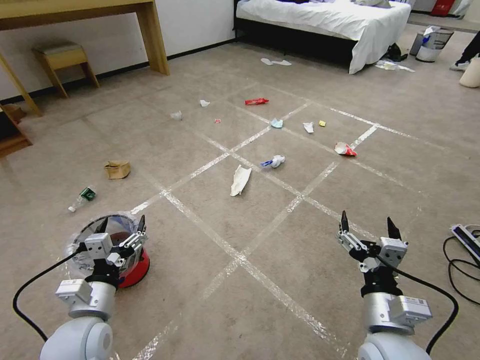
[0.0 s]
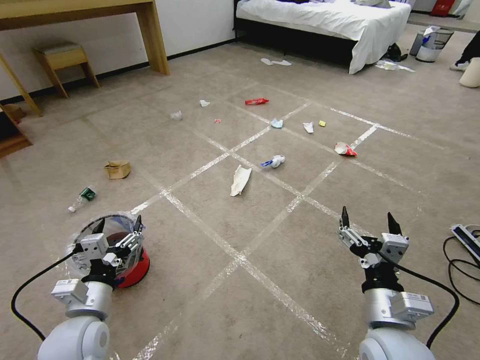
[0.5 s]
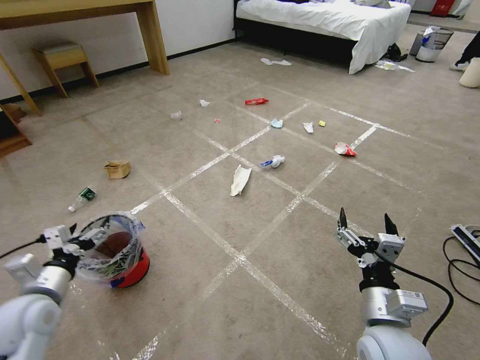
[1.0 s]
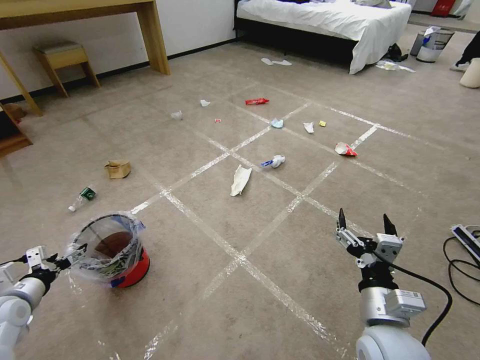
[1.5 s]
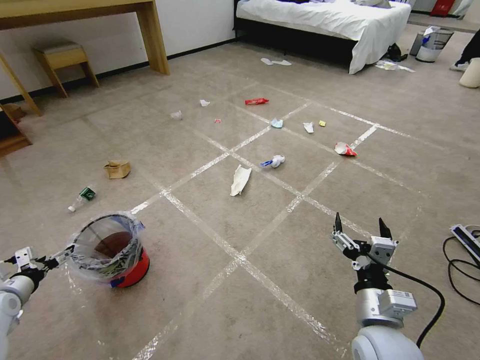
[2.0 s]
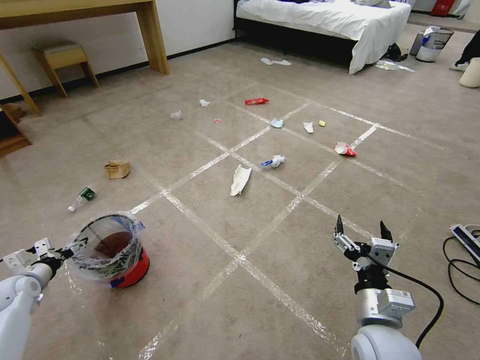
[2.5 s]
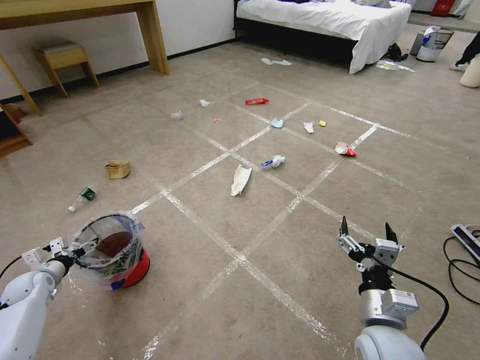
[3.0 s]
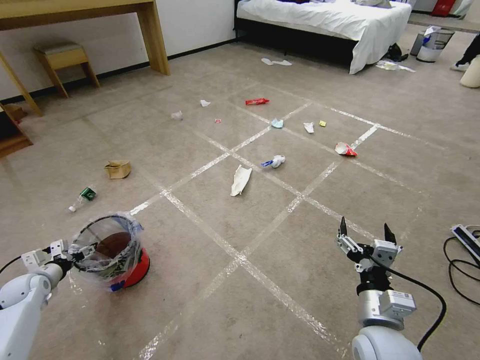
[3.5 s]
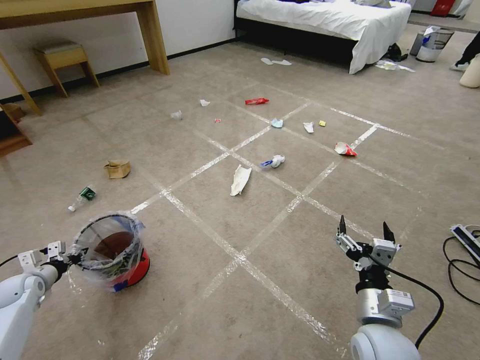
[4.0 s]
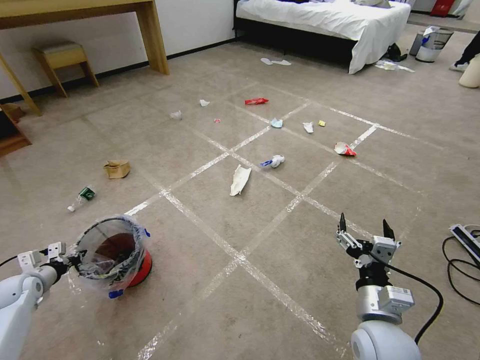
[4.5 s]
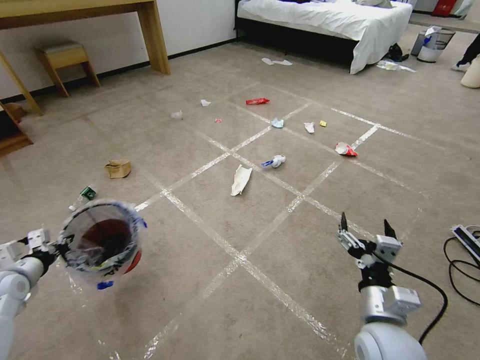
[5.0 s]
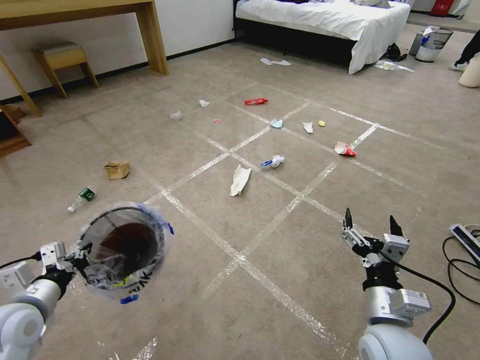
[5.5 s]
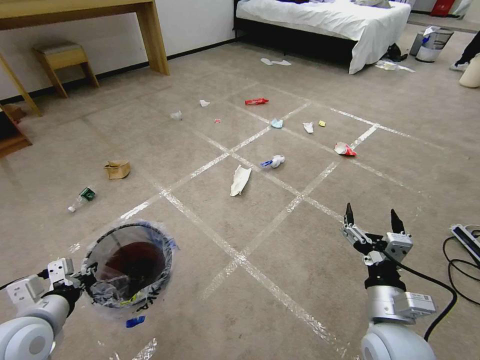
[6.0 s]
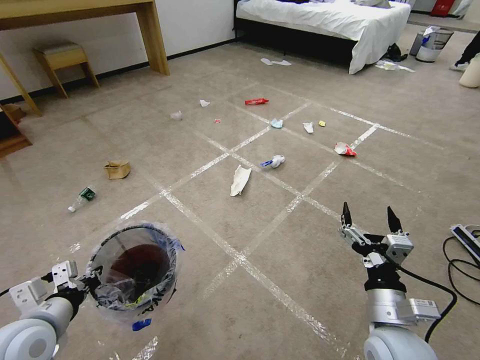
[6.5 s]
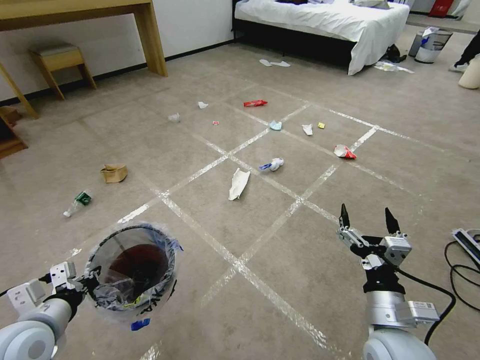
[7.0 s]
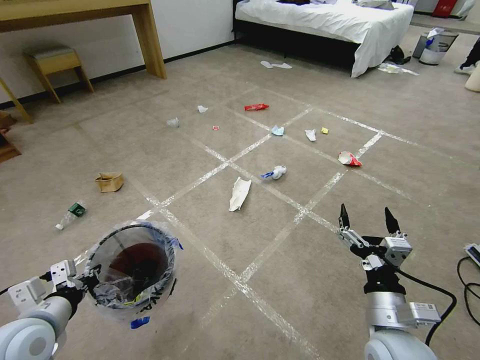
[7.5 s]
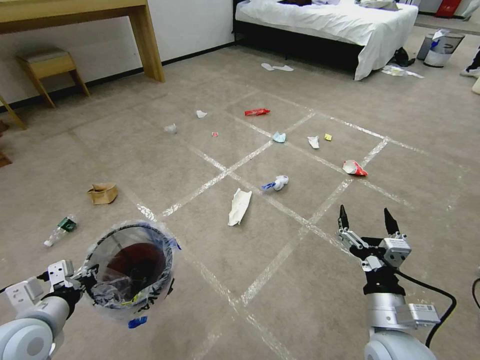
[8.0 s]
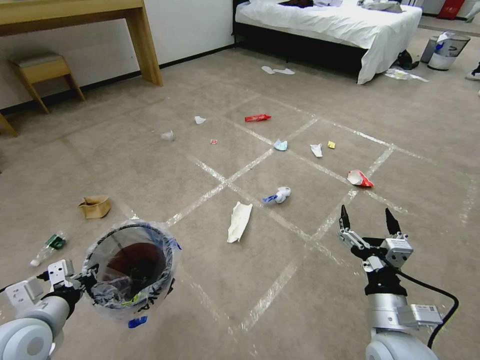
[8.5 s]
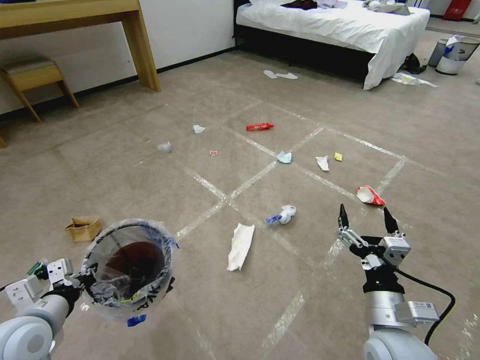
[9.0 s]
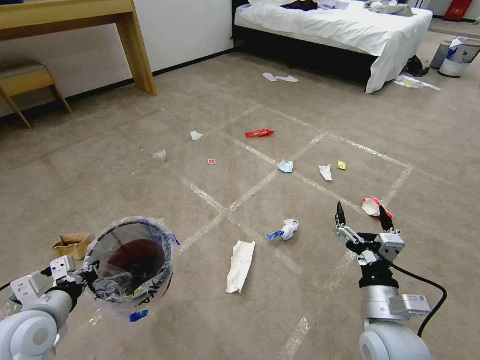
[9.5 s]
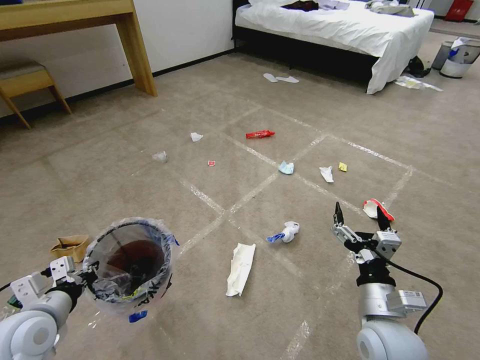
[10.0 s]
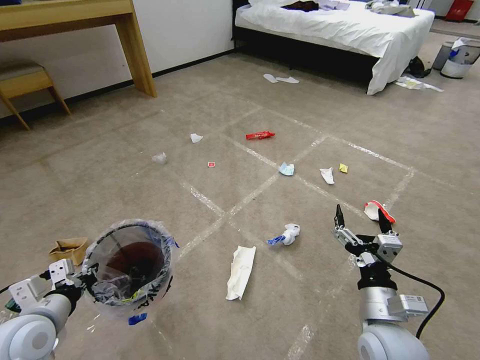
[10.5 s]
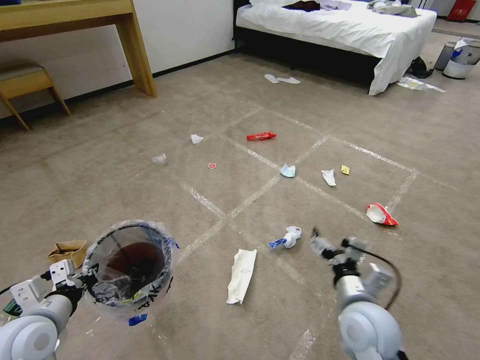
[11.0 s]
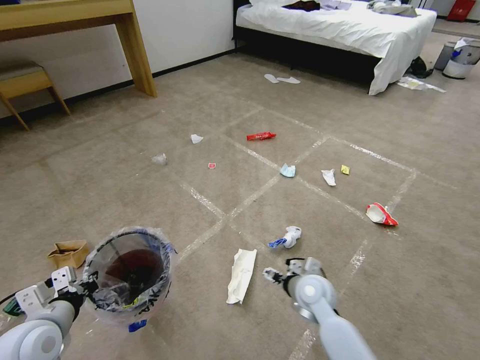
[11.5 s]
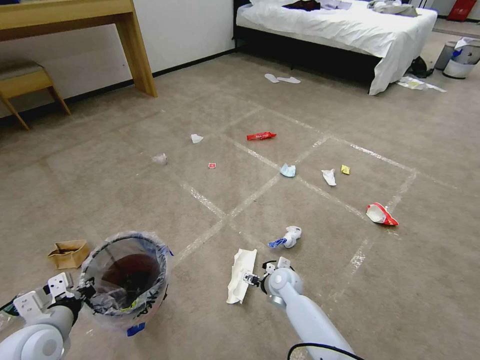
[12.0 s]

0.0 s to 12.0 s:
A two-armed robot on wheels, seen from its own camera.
Task of the whole recording: Pick up the trash bin and place the garbage on the floor into it.
2.0 to 4.0 s: The left gripper goes about 5 cm forward, and closes up.
4.0 to 6.0 s: The left gripper shifts some 30 cm to the right, backward and upward.
10.0 to 12.0 s: The right gripper heads forward, downward and to the left, covering roughly 30 cm.

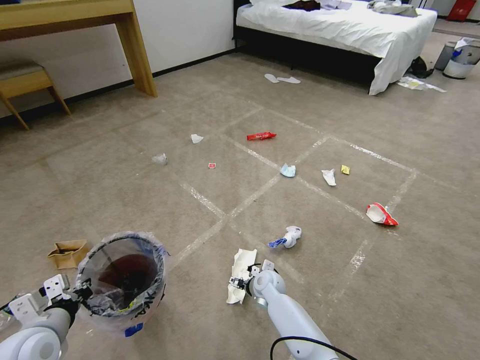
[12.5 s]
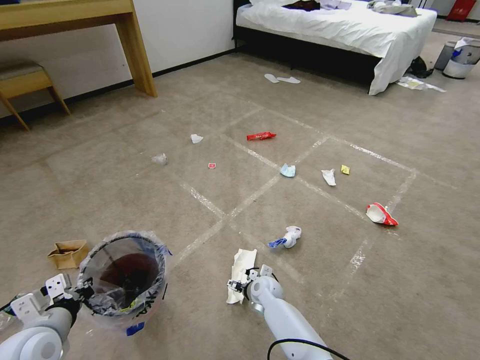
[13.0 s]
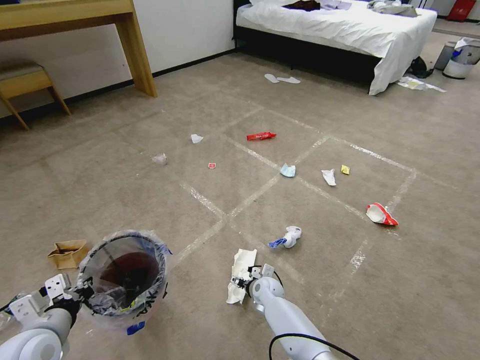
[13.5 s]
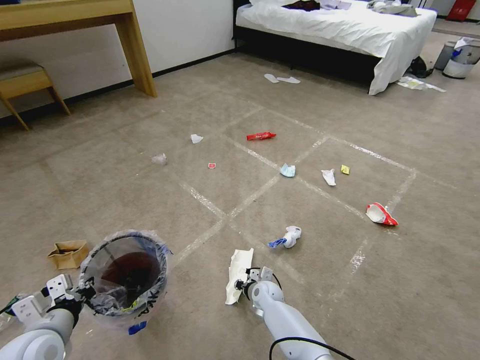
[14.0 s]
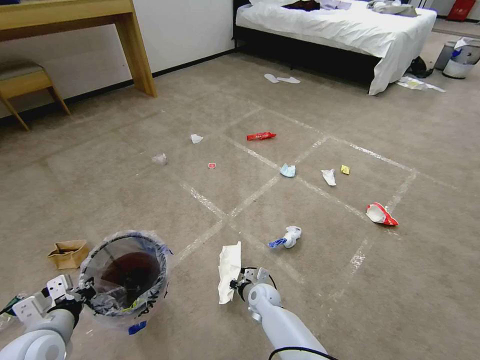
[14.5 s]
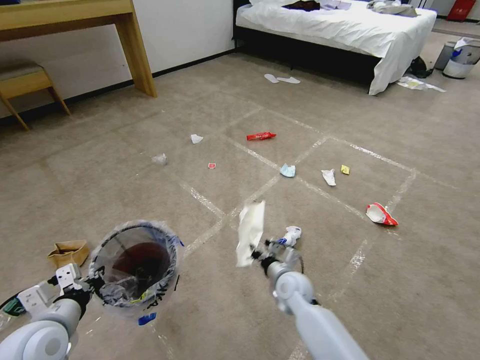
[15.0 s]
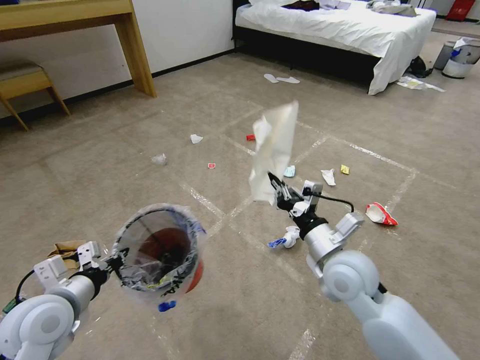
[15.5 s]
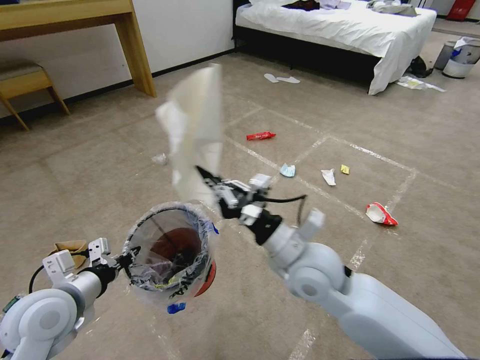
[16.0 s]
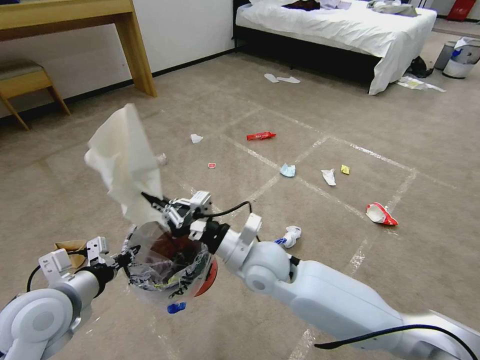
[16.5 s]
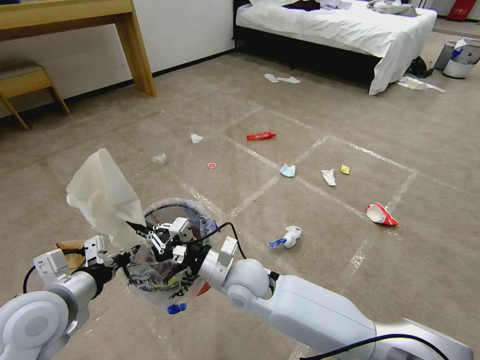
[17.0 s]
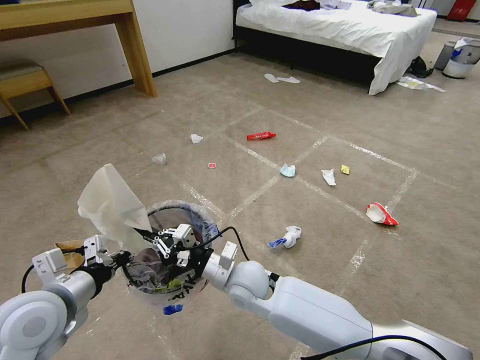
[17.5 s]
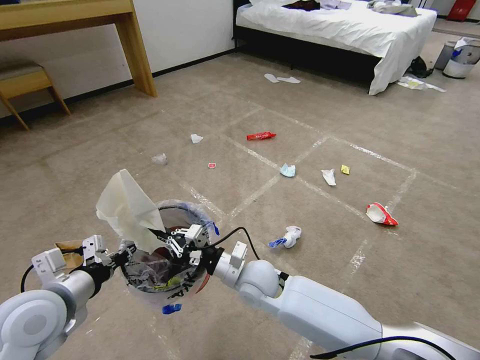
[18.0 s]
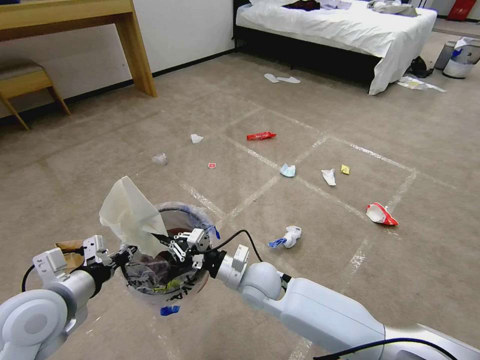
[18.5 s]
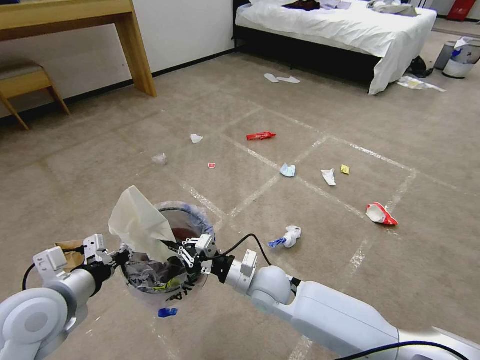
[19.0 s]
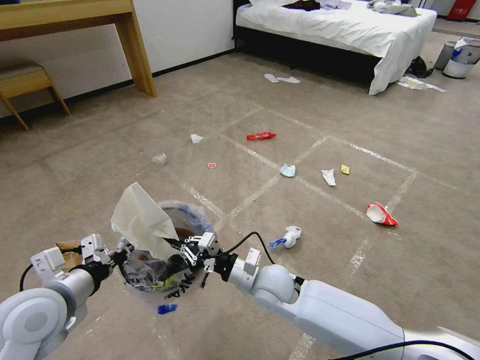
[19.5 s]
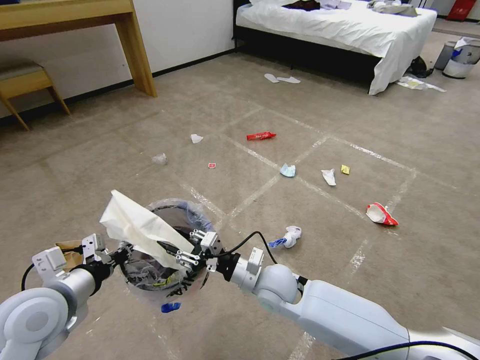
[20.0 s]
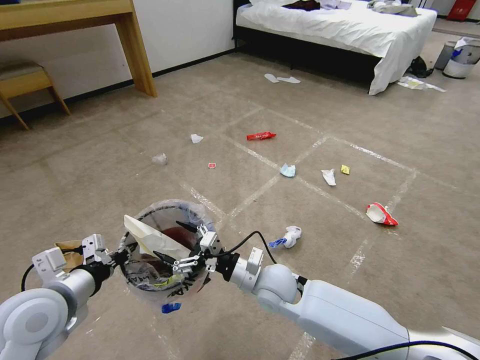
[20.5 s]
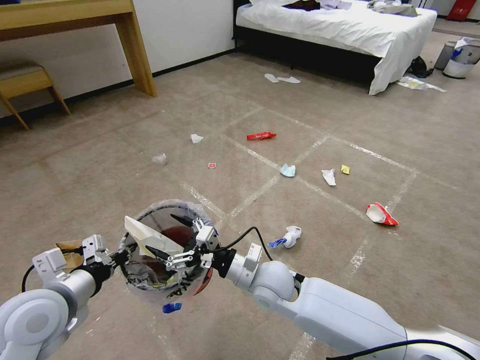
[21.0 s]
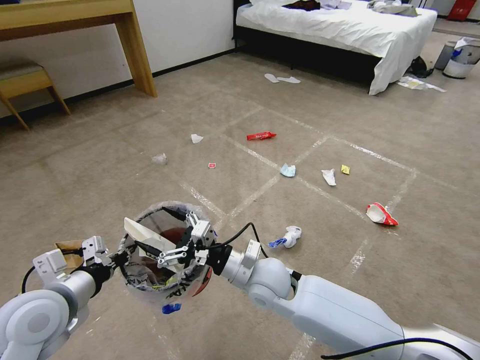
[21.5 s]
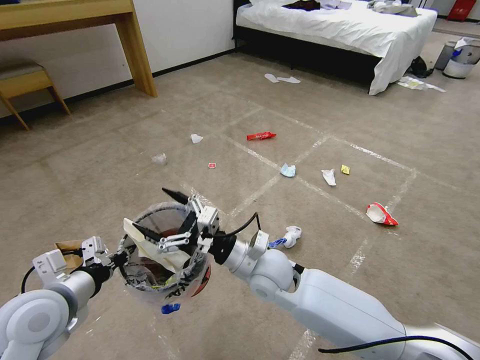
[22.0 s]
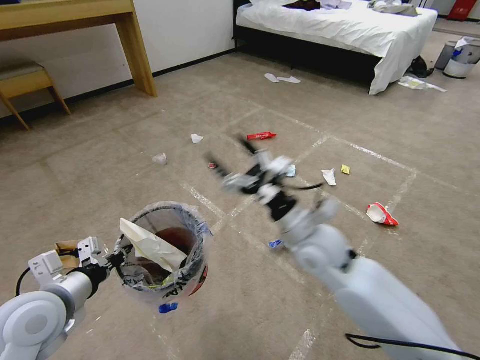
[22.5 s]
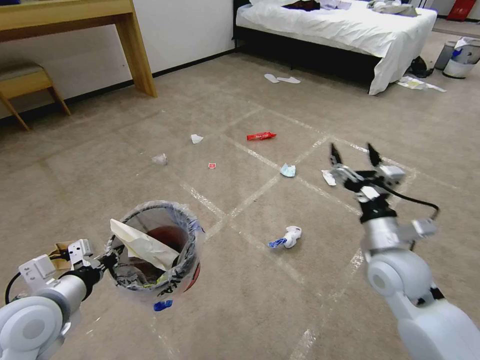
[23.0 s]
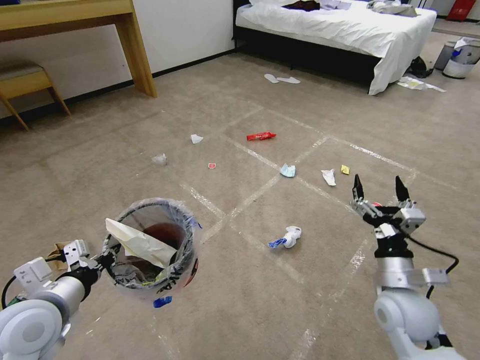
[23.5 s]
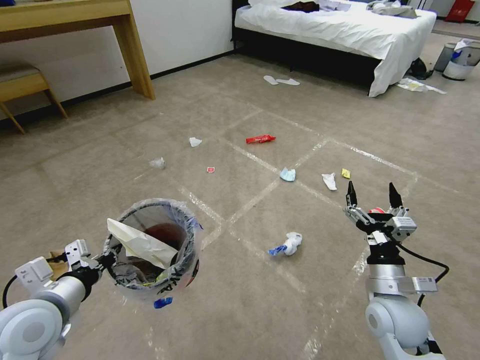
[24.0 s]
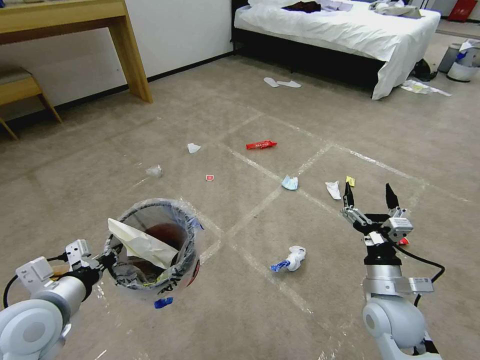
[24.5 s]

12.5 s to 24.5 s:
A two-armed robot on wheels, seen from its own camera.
Task of the whole recording: Pick up the trash bin and place the garbage on the floor into it.
12.5 to 14.5 s: The right gripper closes up.
14.5 to 16.5 s: The left gripper is displaced upward by roughly 10 cm; the right gripper is displaced upward by roughly 30 cm.
16.5 to 18.5 s: The right gripper shifts some 10 cm downward.
18.5 to 20.5 s: The right gripper opens its fingers.
20.5 to 22.5 s: The right gripper heads upward and to the right, covering some 15 cm.
22.5 to 24.5 s: The right gripper is displaced to the right, downward and backward by roughly 20 cm.

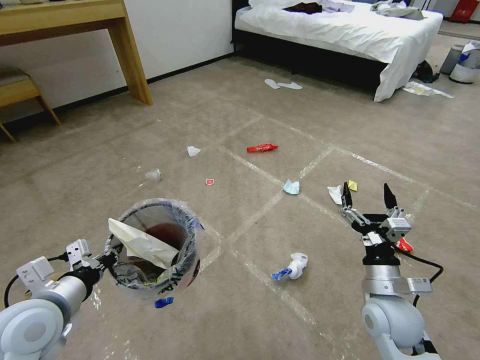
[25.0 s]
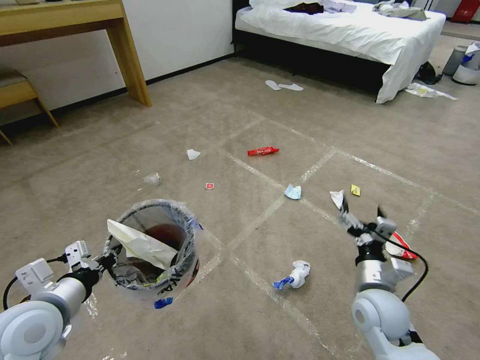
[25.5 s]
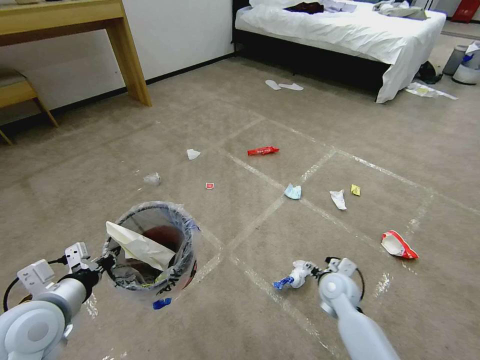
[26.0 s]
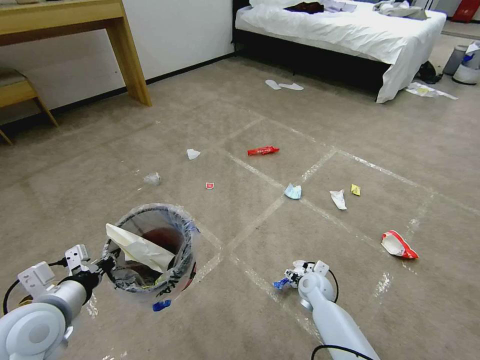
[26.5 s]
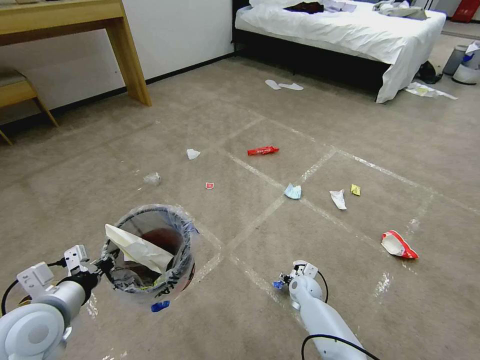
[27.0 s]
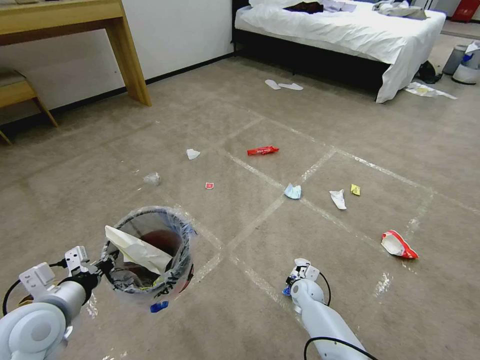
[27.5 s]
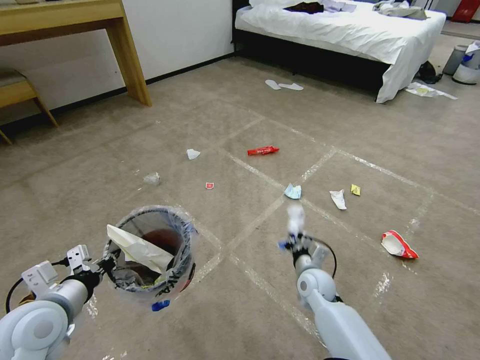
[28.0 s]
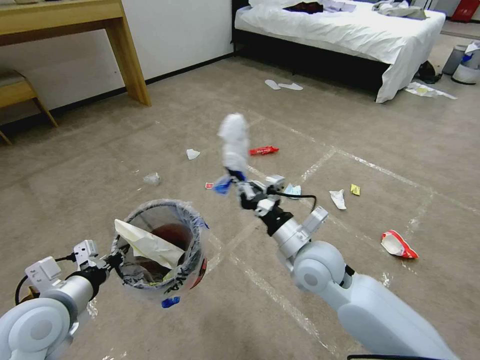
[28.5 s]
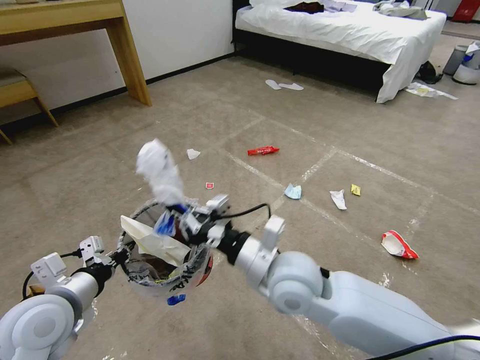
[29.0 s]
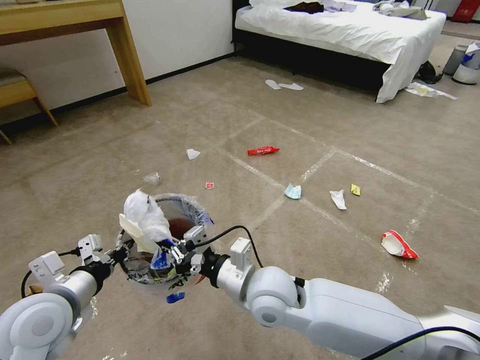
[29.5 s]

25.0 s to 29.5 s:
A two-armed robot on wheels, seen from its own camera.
Task of the whole recording: Pick up the trash bin and place the garbage on the floor into it.
25.0 to 27.0 s: The right gripper heads downward and forward, covering some 25 cm.
27.0 to 29.5 s: The right gripper moves upward, to the left and backward, some 35 cm, and closes up.
